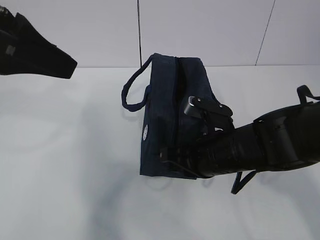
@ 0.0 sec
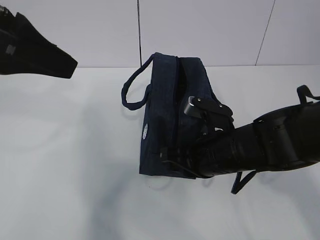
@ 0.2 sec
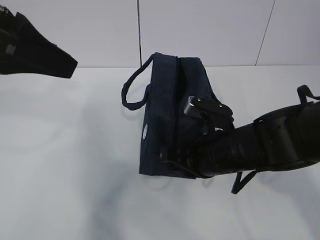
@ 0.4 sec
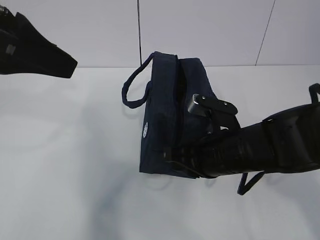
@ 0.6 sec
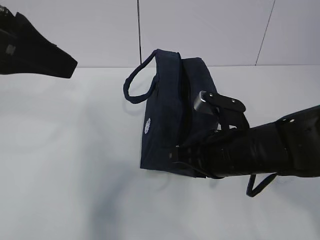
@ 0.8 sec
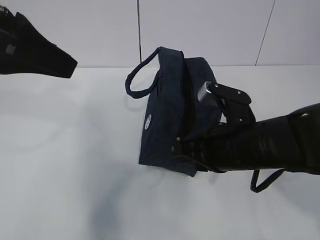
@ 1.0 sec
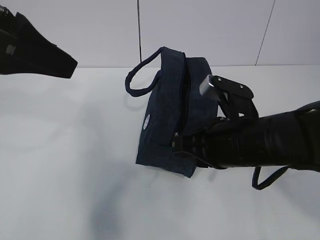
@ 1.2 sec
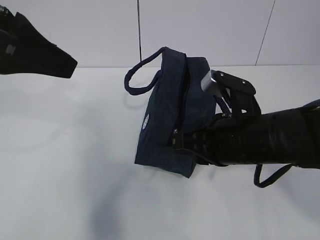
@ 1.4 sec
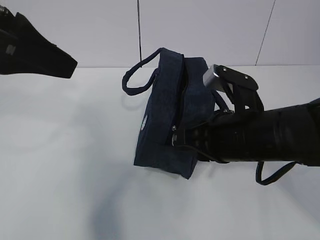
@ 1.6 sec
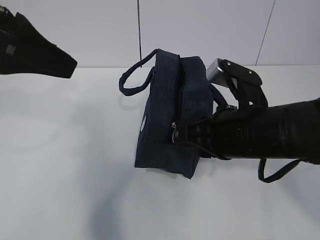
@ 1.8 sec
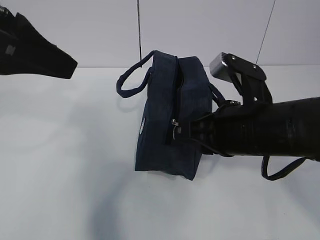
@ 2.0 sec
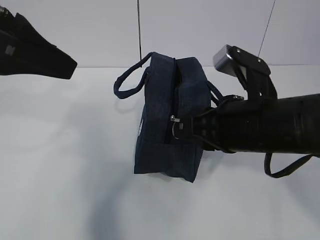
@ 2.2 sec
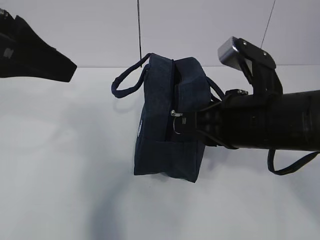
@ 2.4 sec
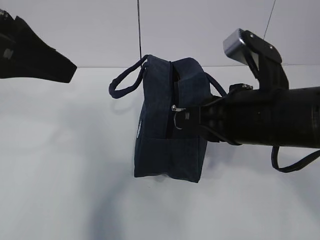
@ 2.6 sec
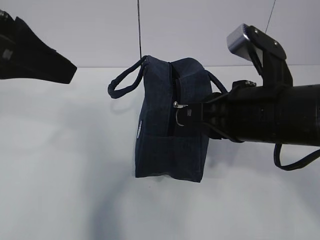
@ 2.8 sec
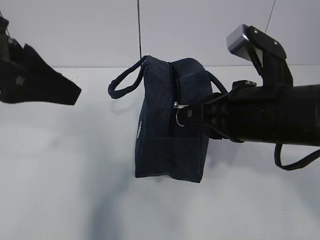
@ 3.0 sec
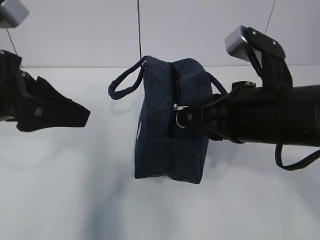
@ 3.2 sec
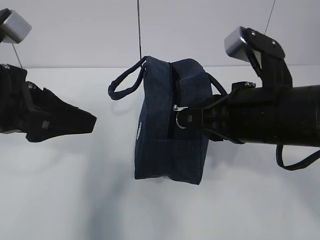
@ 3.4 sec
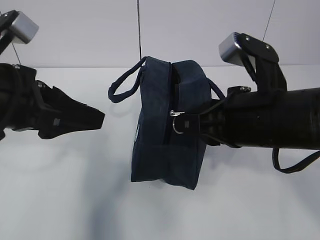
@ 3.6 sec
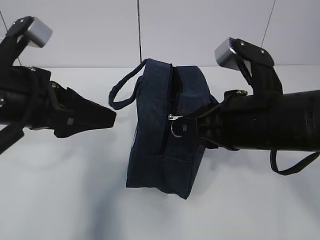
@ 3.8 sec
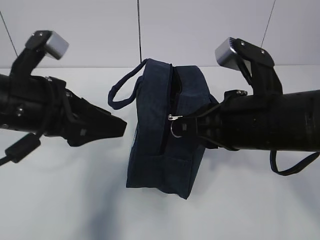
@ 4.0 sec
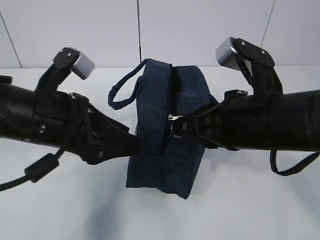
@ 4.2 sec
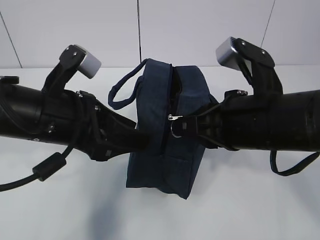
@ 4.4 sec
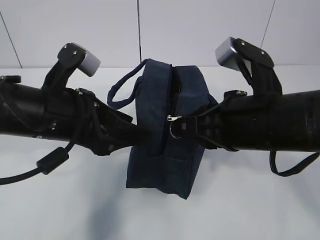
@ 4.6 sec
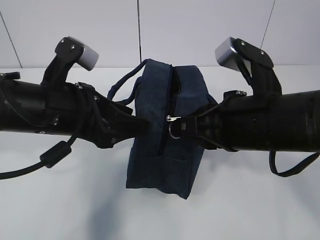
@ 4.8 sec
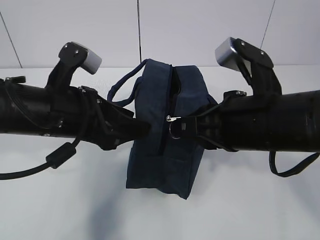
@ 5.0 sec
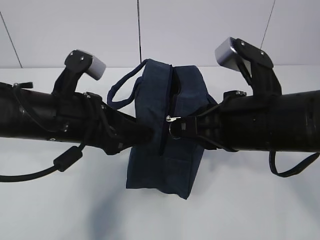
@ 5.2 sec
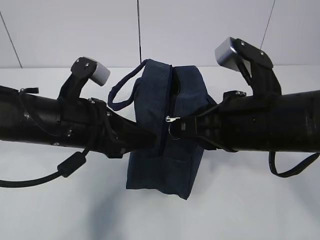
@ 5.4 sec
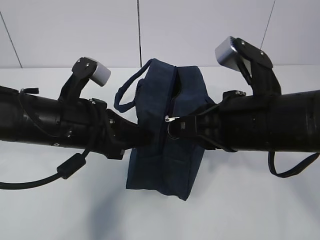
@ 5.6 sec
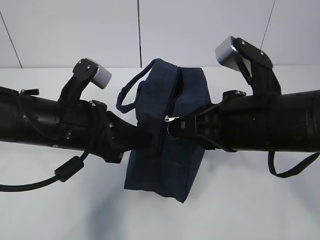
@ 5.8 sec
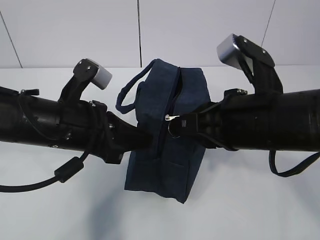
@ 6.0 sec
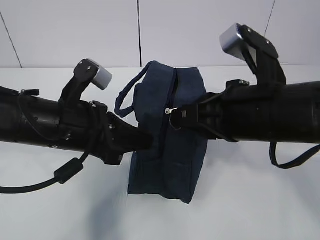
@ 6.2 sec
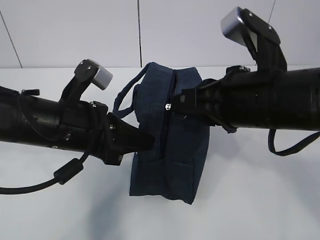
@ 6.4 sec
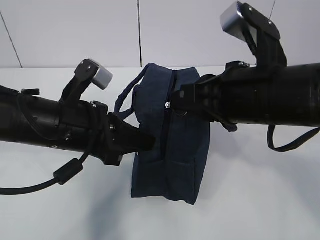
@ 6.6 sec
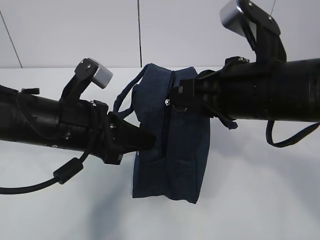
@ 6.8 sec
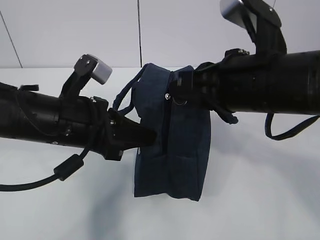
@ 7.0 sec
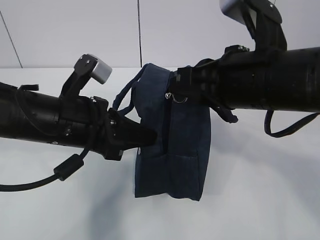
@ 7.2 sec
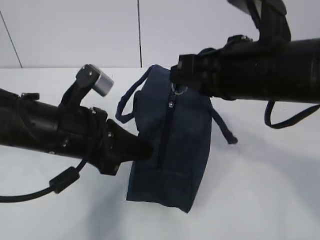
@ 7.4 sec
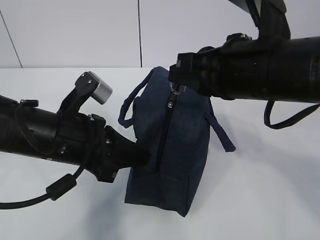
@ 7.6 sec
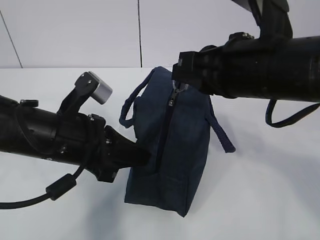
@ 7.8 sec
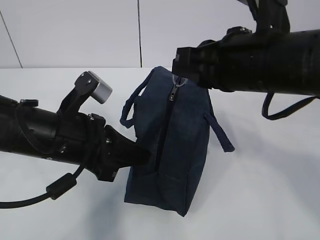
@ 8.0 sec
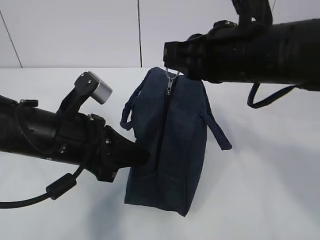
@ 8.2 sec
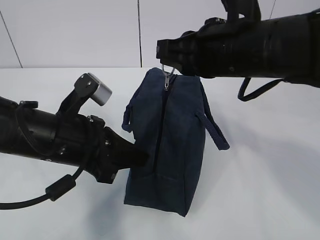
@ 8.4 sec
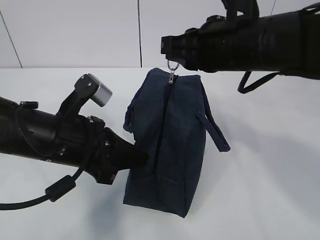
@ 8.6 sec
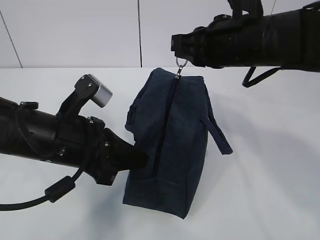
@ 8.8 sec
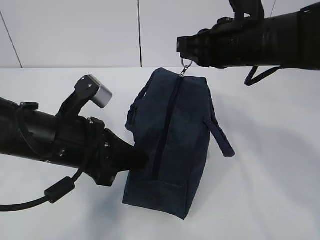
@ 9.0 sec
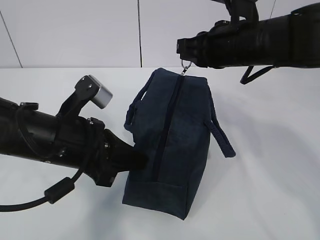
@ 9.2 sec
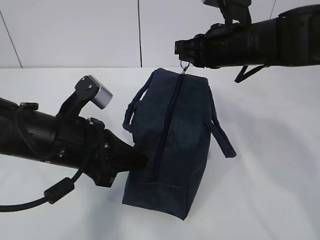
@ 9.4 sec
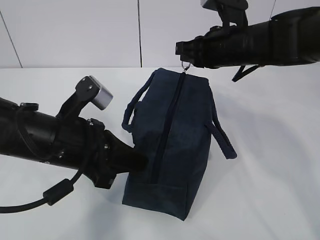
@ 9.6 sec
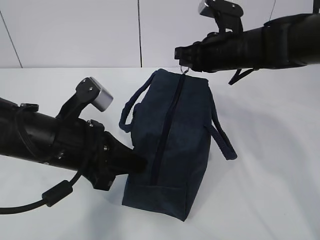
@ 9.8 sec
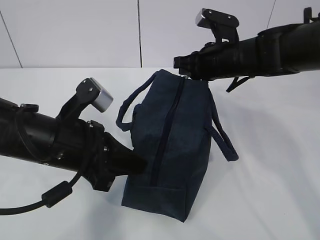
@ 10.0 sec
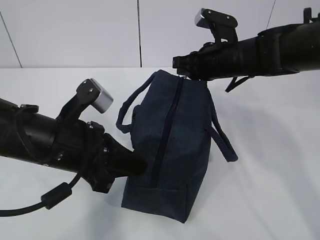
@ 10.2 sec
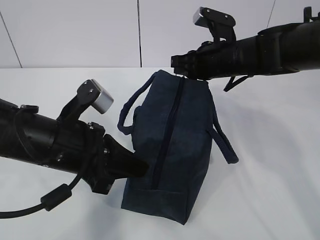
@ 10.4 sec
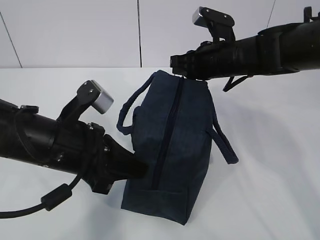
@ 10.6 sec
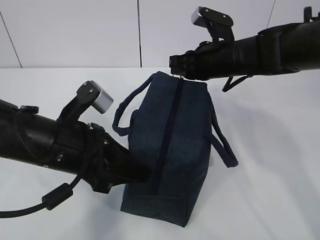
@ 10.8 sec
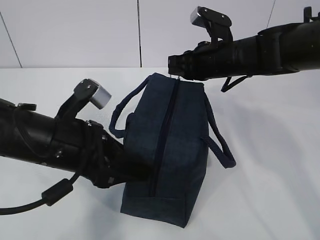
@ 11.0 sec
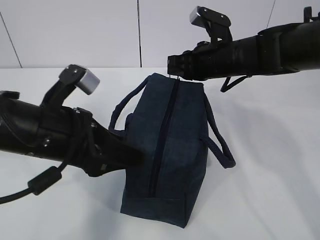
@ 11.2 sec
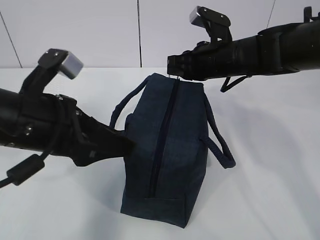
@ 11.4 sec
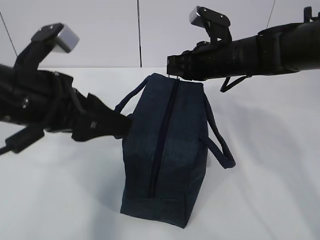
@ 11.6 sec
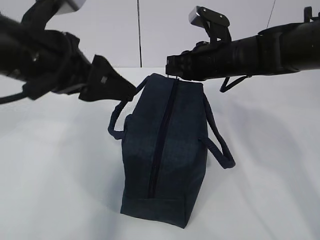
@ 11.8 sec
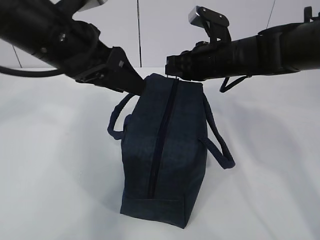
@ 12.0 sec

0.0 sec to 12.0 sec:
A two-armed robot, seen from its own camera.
Step, 1.0 sec to 5.8 sec: Pull the zipper with your right hand.
Step, 6.0 sec to 8.2 sec: Grab the lunch bag with your left hand.
0.0 sec to 1.6 sec: The right gripper goes about 5 cm upward.
1.6 sec to 3.0 sec: The right gripper shifts by some 5 cm.
3.0 sec to 4.4 sec: The left gripper moves downward and to the right, roughly 10 cm.
4.4 sec to 6.0 sec: The left gripper closes.
6.0 sec to 7.6 sec: The right gripper ends up about 5 cm from where it was.
7.6 sec to 9.0 sec: The right gripper heads forward, covering some 10 cm.
9.0 sec to 10.4 sec: The right gripper goes about 10 cm forward and downward.
10.4 sec to 12.0 sec: The left gripper shifts roughly 15 cm upward and forward, and opens up.

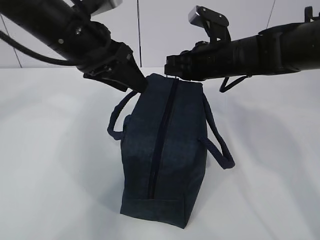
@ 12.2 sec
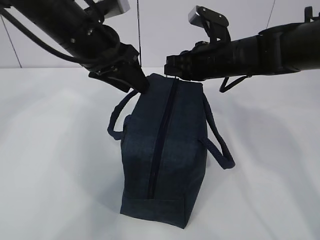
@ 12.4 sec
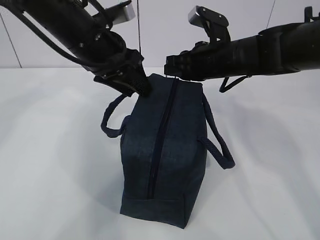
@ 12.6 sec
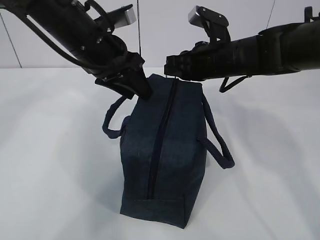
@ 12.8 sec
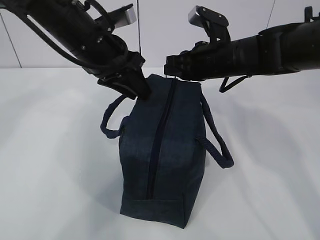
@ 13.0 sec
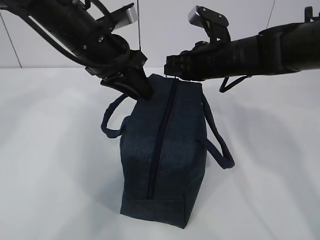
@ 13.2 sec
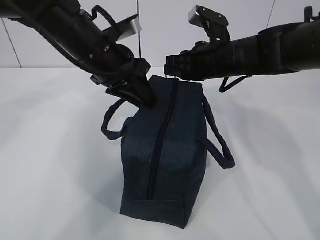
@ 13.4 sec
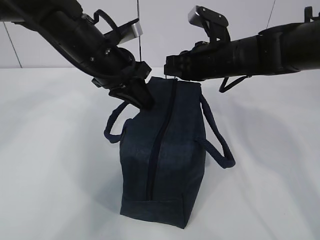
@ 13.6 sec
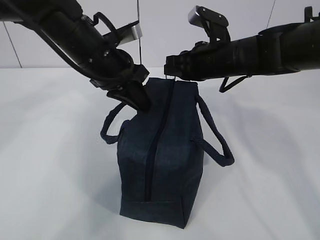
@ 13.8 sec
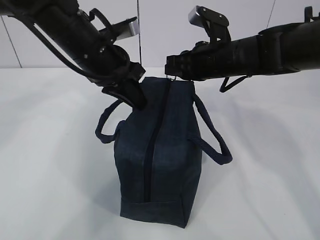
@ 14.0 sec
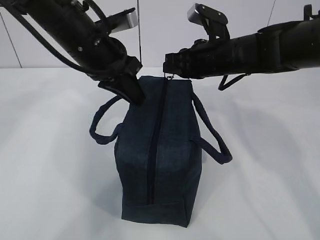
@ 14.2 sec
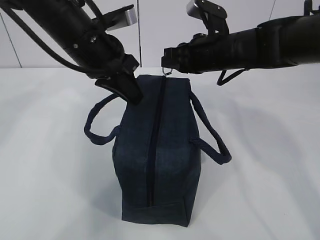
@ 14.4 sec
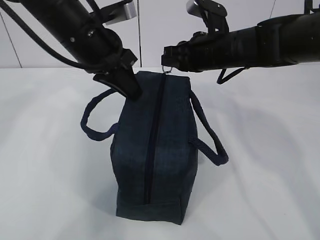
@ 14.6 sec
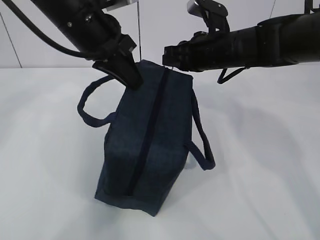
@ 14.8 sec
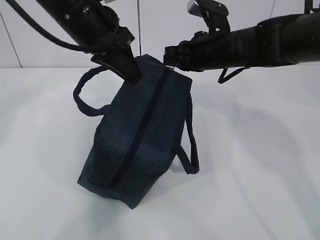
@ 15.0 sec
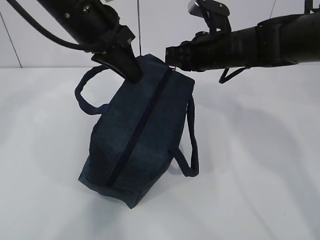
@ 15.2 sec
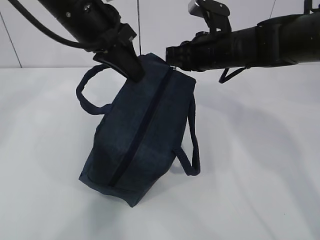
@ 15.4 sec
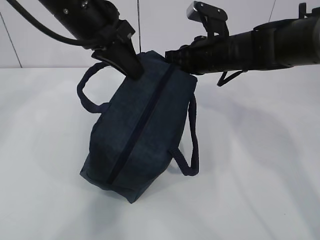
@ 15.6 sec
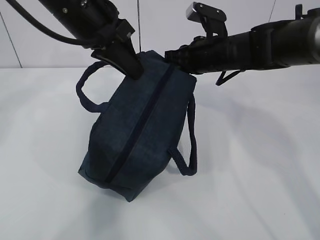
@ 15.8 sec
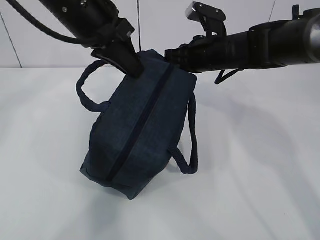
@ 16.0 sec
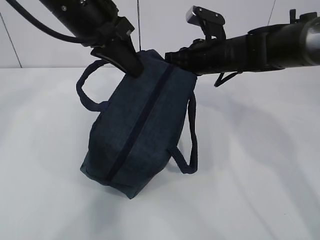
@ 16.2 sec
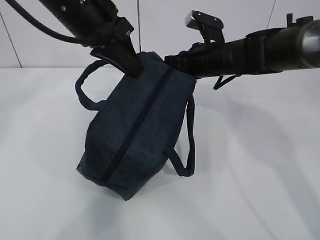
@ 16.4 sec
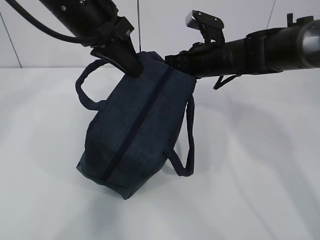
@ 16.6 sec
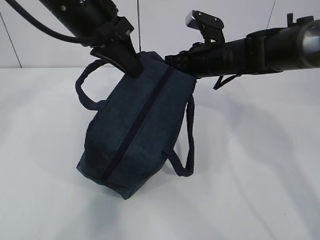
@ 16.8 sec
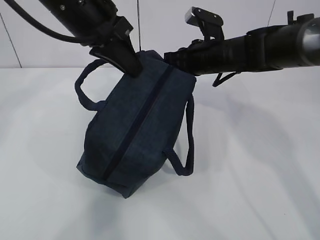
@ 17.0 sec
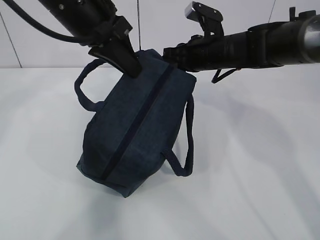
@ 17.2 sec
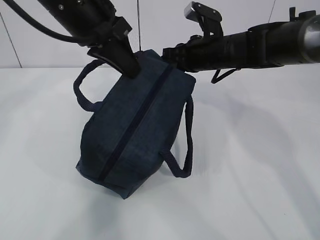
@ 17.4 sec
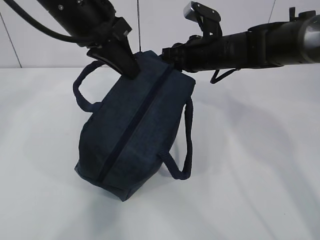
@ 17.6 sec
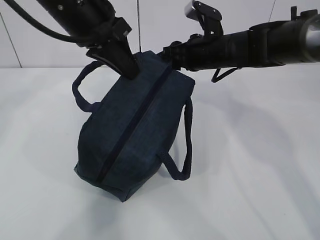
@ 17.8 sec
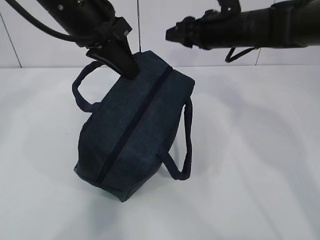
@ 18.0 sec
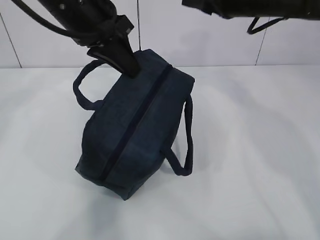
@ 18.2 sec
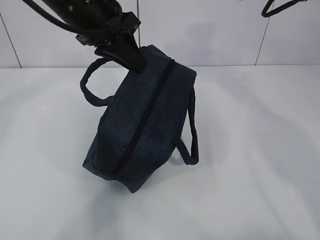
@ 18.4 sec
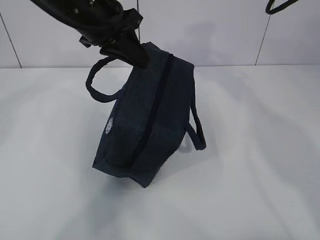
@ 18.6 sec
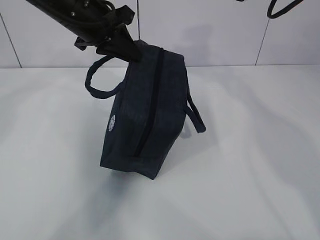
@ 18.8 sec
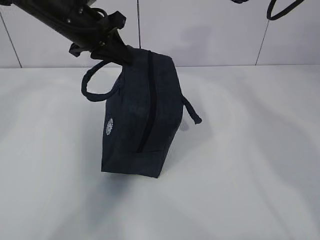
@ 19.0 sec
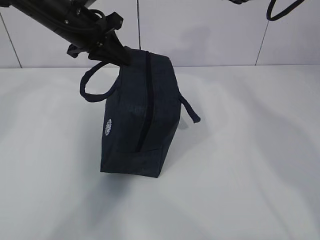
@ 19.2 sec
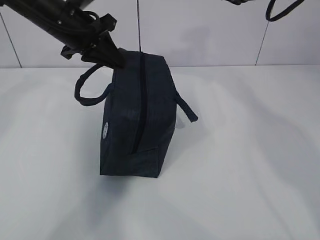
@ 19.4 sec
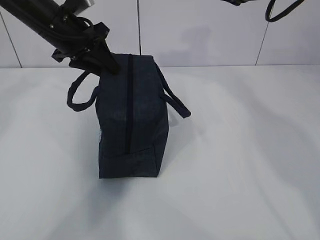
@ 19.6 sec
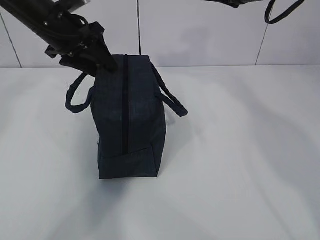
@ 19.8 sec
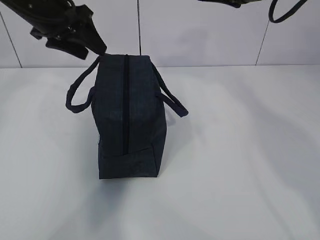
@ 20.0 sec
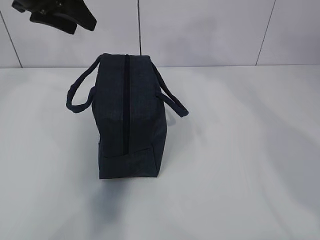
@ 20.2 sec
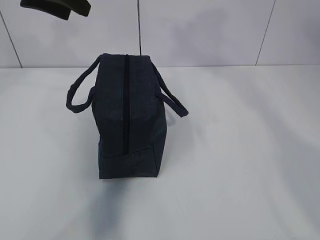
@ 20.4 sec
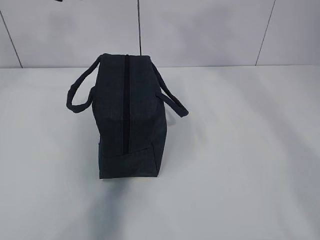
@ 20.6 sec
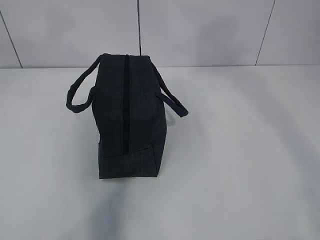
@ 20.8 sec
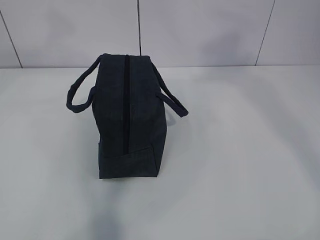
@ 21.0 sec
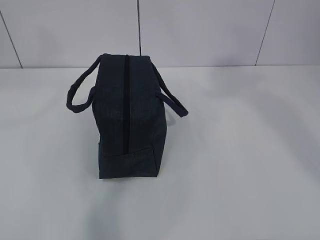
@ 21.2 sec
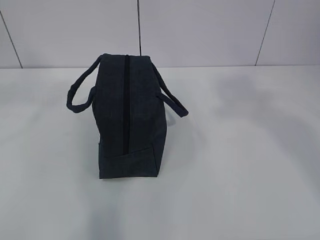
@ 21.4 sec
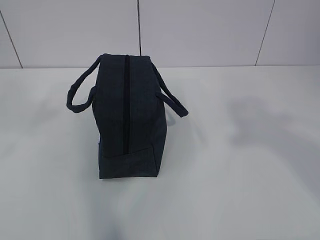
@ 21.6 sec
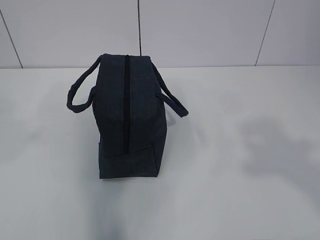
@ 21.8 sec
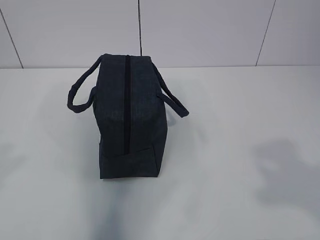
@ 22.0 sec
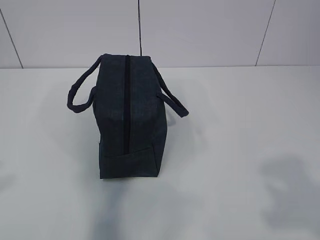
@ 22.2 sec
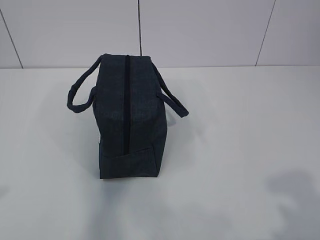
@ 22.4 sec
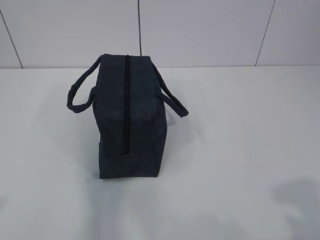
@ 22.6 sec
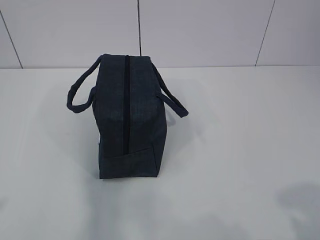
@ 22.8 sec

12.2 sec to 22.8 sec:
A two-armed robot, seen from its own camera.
12.2 sec to 13.8 sec: The left gripper moves roughly 5 cm, and closes.
13.8 sec to 15.2 sec: The left gripper heads upward, covering approximately 5 cm.
15.2 sec to 16.8 sec: There are only small adjustments of the grippers.
16.8 sec to 18.2 sec: The right gripper goes about 10 cm upward, and opens.
18.2 sec to 19.8 sec: The left gripper travels to the left and forward by about 10 cm, and opens its fingers.
19.8 sec to 21.2 sec: Both grippers travel together backward and upward, approximately 30 cm.
